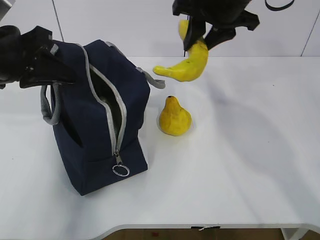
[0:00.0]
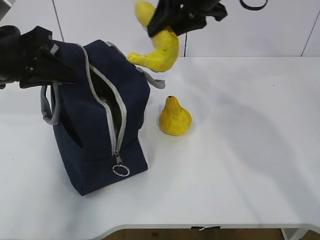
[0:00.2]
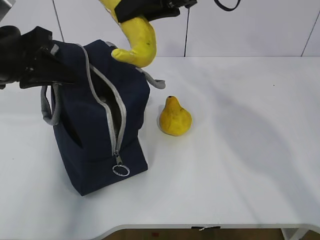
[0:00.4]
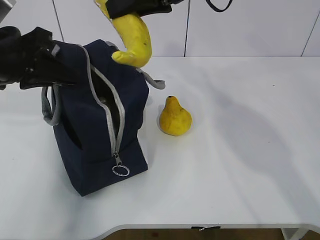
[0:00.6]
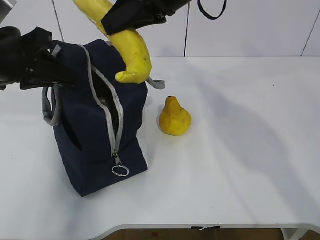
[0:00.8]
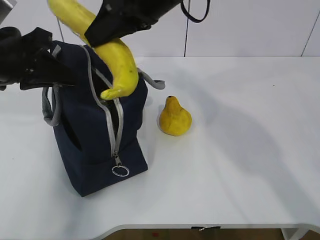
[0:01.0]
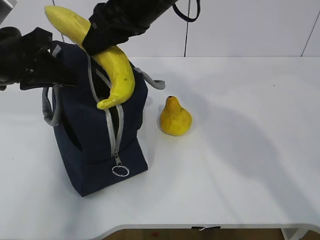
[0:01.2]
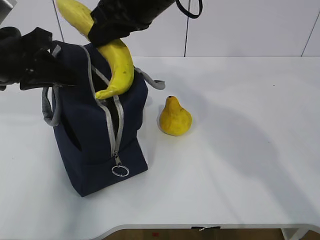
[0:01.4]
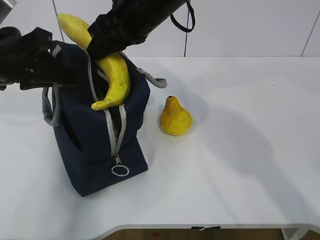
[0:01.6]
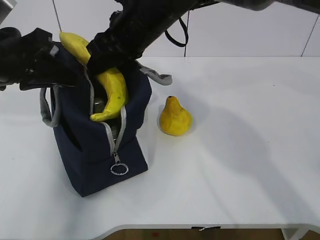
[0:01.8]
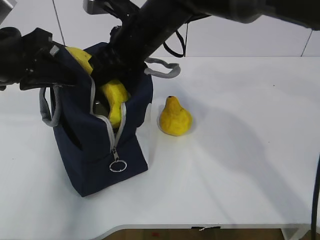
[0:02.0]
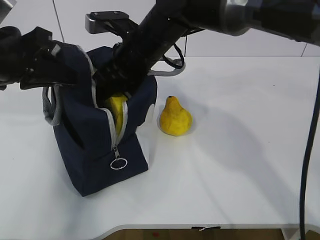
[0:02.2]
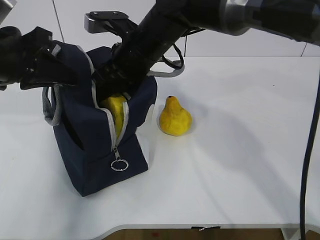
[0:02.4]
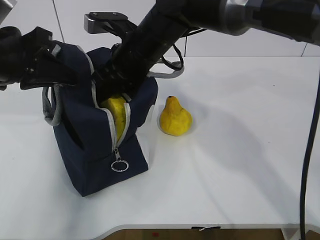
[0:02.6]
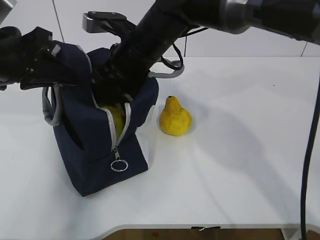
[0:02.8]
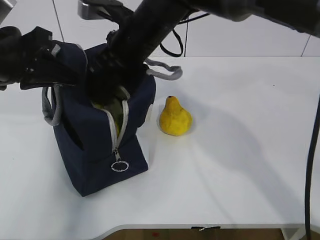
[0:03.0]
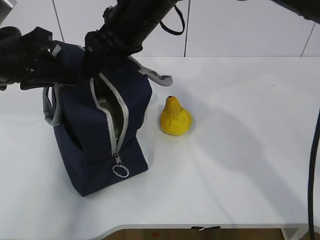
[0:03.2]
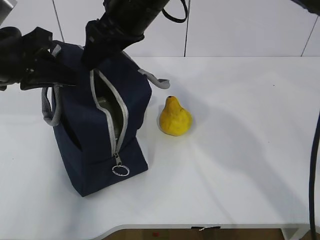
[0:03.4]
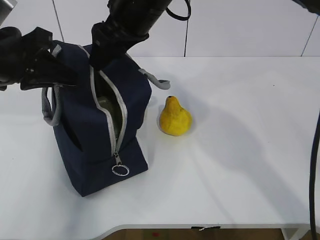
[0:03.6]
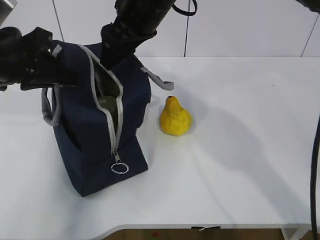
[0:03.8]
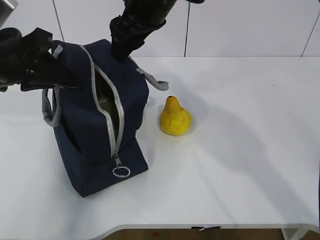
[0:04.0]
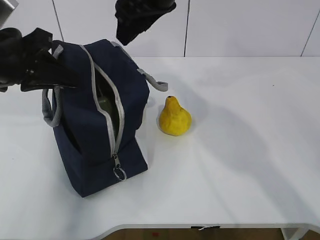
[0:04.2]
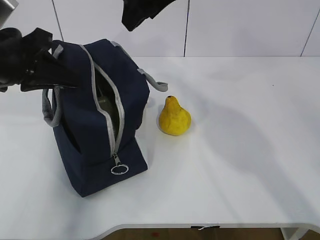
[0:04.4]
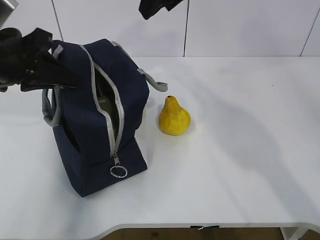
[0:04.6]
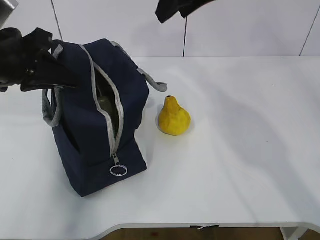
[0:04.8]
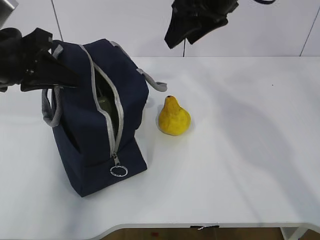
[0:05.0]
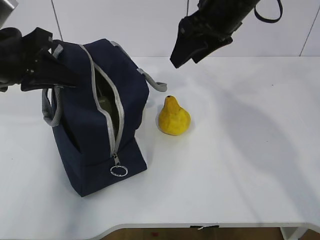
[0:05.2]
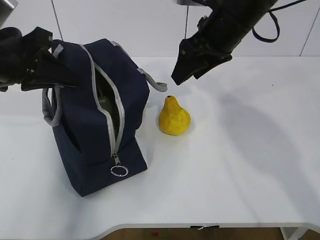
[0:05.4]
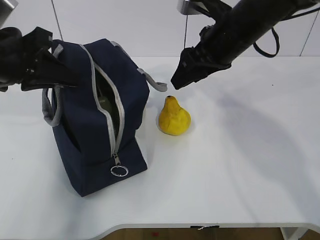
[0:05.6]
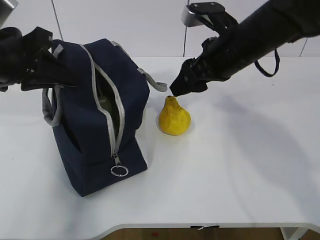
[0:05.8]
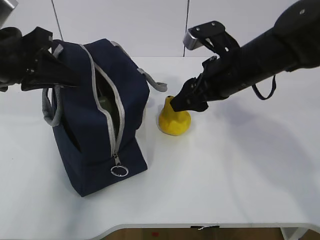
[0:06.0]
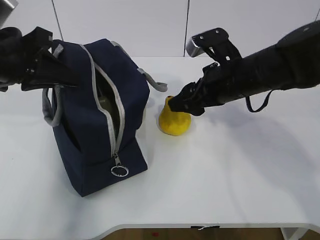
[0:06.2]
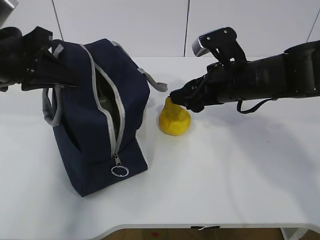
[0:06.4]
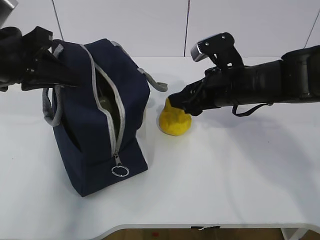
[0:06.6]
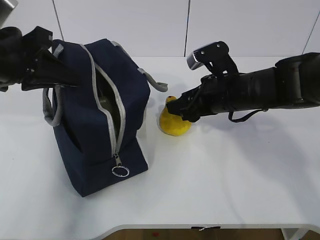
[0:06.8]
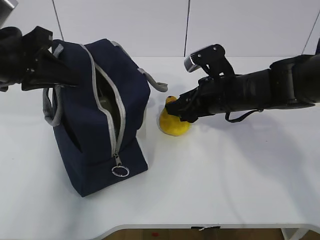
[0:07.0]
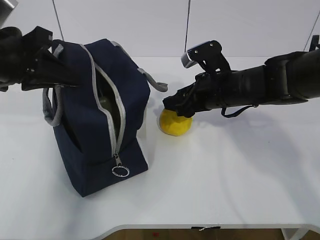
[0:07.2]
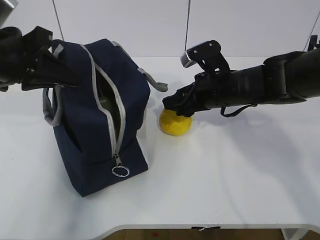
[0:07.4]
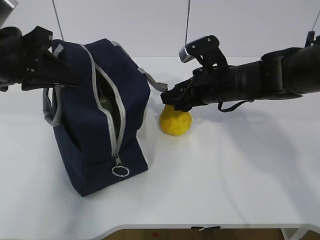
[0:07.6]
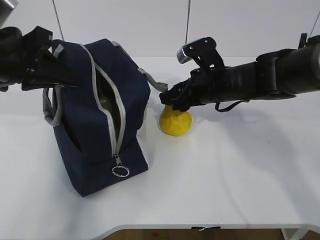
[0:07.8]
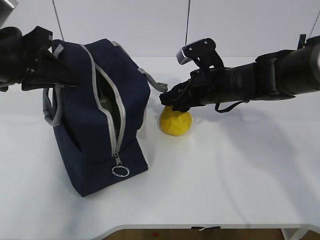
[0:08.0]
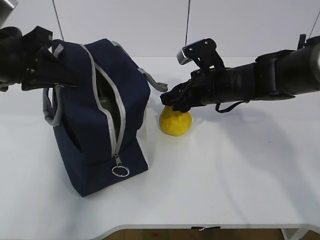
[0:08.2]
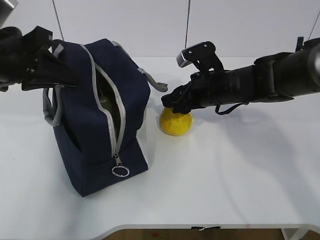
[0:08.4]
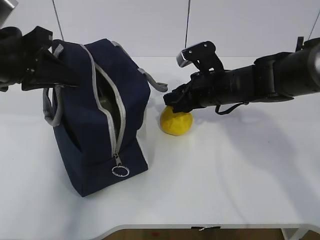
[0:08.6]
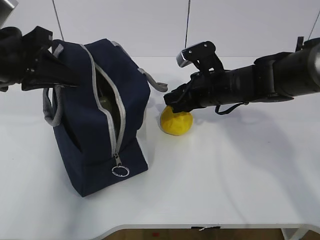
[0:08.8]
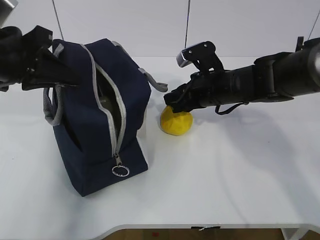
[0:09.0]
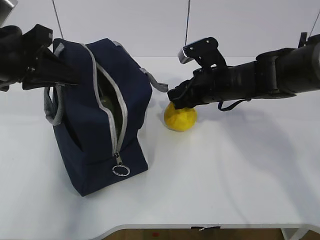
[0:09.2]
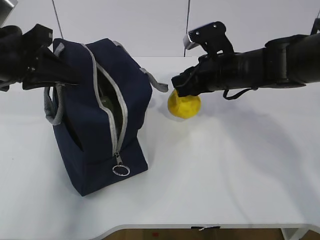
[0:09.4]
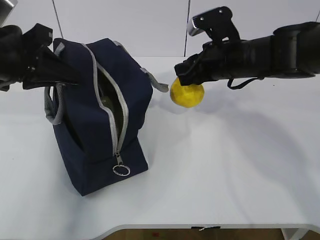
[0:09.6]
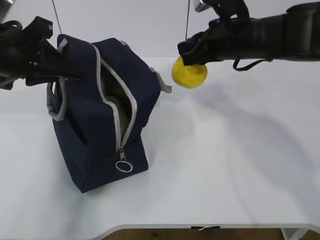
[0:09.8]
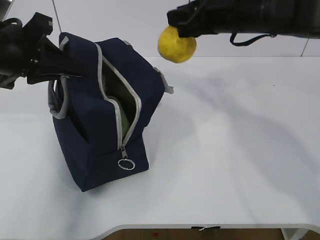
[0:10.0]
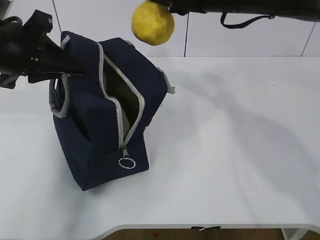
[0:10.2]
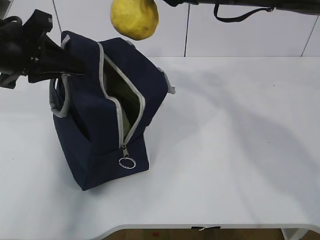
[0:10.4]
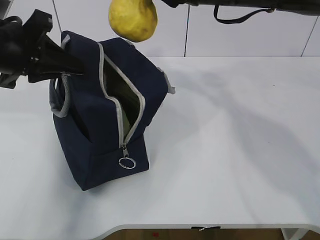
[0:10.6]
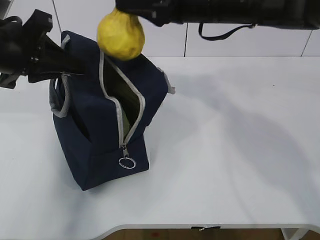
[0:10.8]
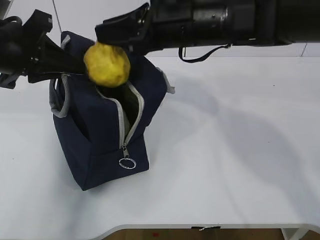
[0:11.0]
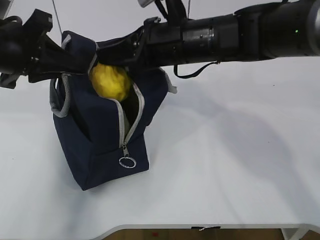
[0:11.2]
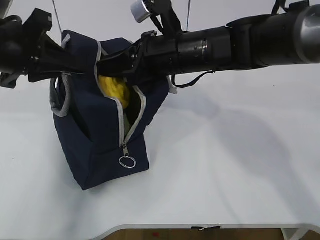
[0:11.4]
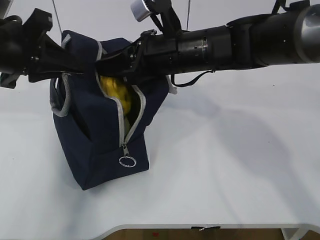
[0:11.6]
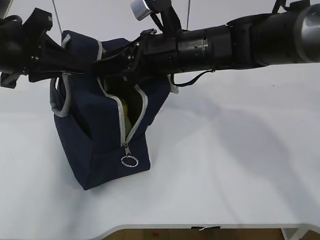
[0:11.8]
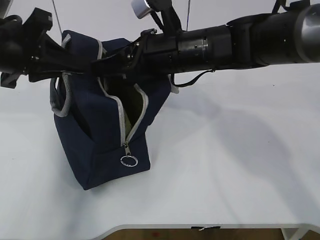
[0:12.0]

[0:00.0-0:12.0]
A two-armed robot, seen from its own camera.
Step, 0:00.0 to 0:03.4: Grab the pear with your right hand.
Step, 0:06.0 to 0:09.8: Grab the lunch bag with your right hand.
0:00.0 to 0:01.6: The right gripper is displaced to the left by approximately 10 cm.
0:01.6 to 0:03.0: The right gripper heads downward, covering some 5 cm, and opens up.
0:03.0 to 0:04.4: The right gripper shifts approximately 10 cm upward and to the right.
0:04.4 to 0:06.0: The right gripper goes approximately 15 cm downward and to the right.
0:06.0 to 0:07.6: The right gripper heads downward, covering about 5 cm.
0:07.6 to 0:09.0: The right gripper closes.
0:09.0 to 0:10.4: The right gripper goes roughly 20 cm upward.
0:10.4 to 0:12.0: The right gripper moves downward and to the left, about 10 cm, and opens its fingers.

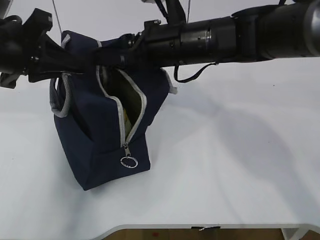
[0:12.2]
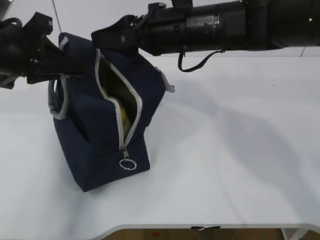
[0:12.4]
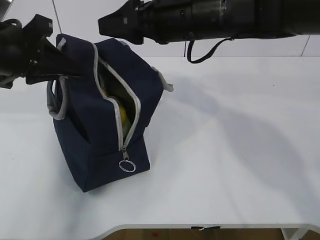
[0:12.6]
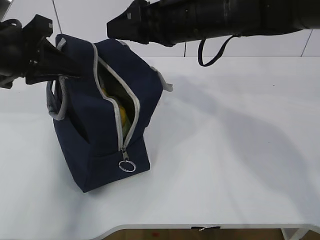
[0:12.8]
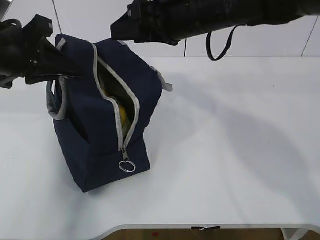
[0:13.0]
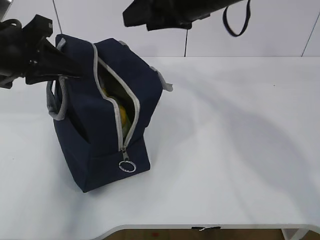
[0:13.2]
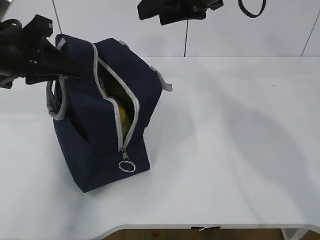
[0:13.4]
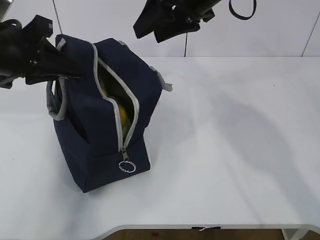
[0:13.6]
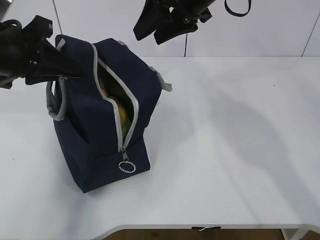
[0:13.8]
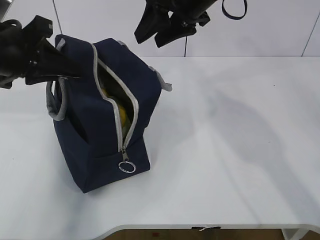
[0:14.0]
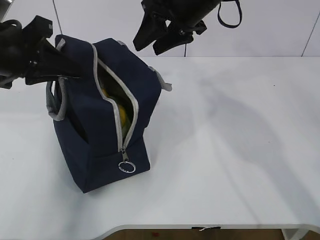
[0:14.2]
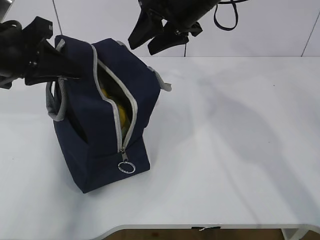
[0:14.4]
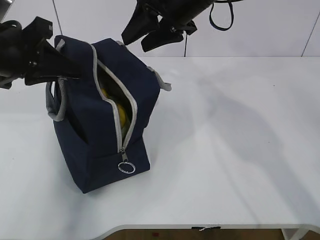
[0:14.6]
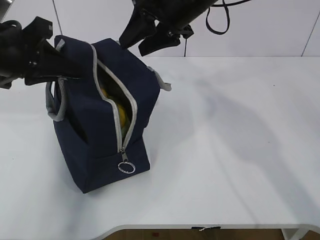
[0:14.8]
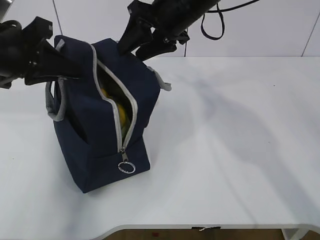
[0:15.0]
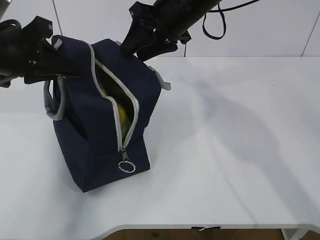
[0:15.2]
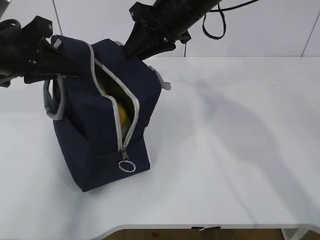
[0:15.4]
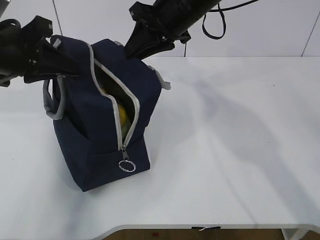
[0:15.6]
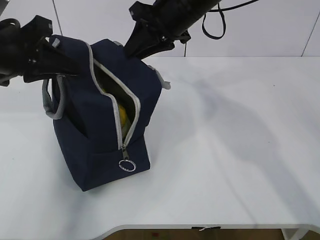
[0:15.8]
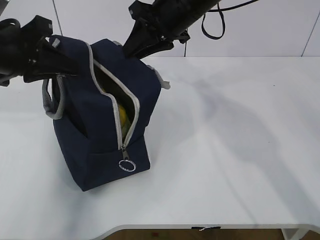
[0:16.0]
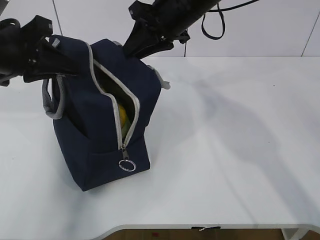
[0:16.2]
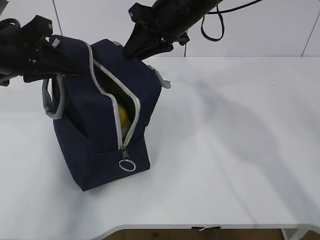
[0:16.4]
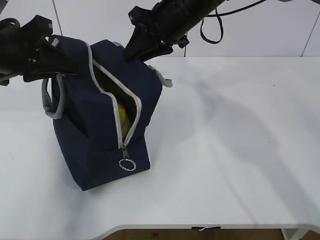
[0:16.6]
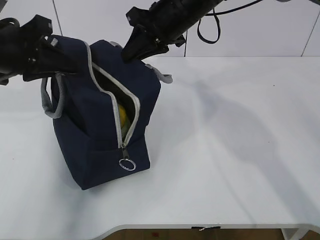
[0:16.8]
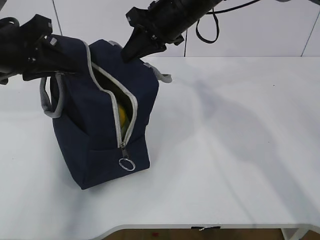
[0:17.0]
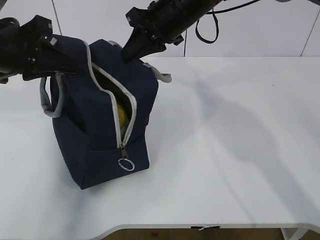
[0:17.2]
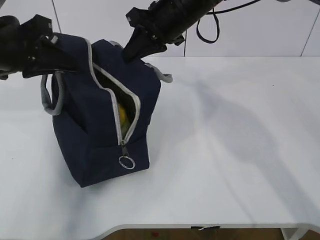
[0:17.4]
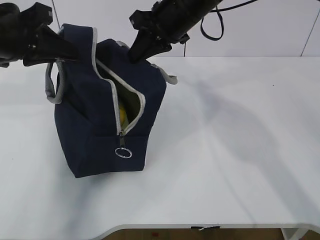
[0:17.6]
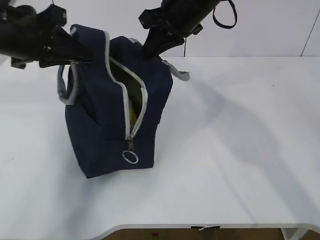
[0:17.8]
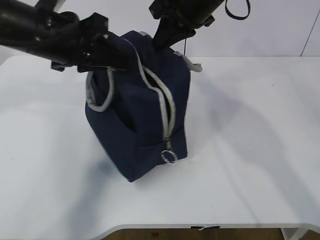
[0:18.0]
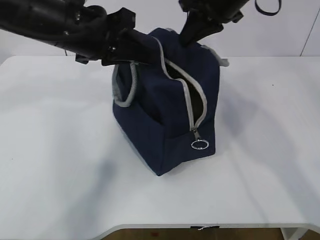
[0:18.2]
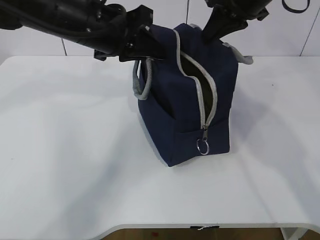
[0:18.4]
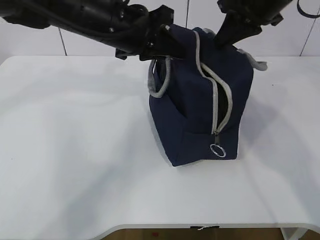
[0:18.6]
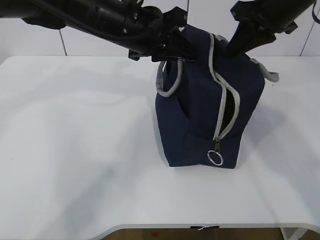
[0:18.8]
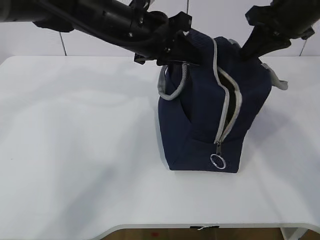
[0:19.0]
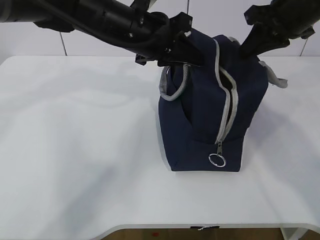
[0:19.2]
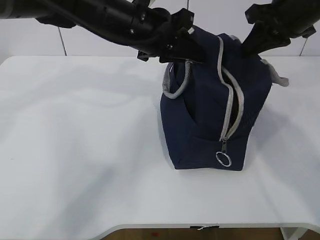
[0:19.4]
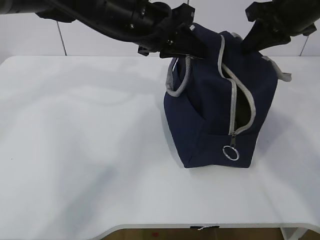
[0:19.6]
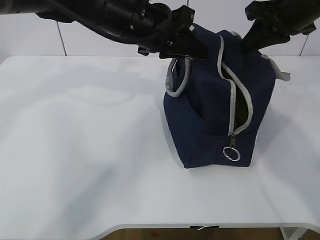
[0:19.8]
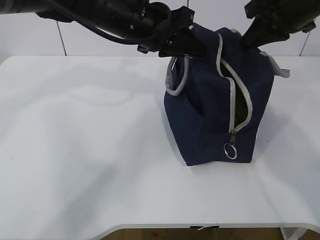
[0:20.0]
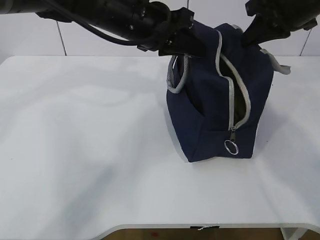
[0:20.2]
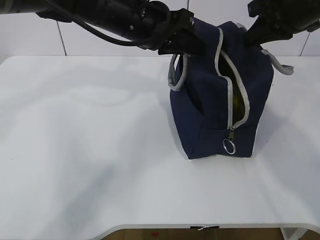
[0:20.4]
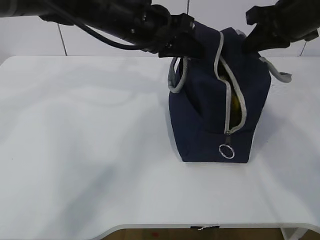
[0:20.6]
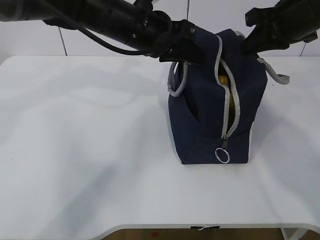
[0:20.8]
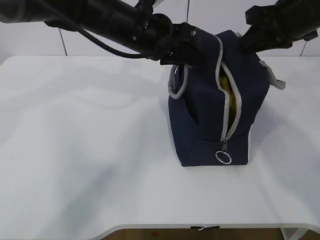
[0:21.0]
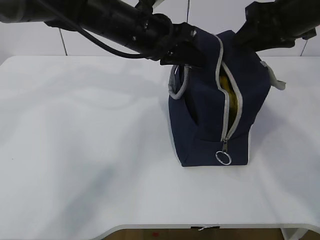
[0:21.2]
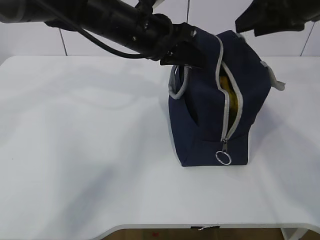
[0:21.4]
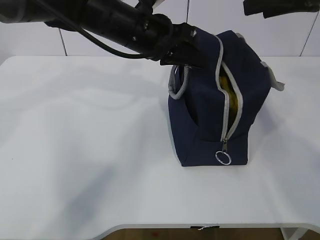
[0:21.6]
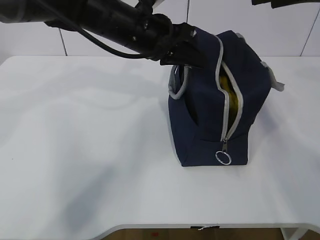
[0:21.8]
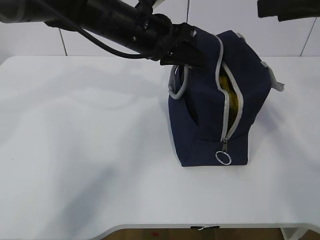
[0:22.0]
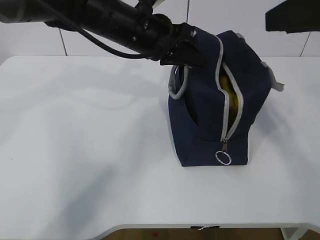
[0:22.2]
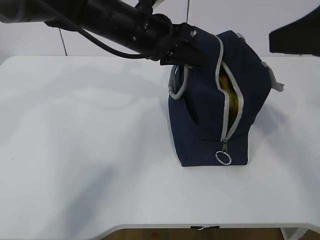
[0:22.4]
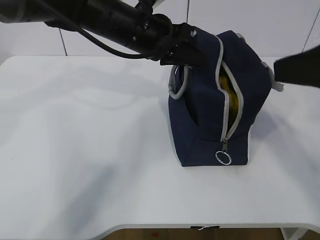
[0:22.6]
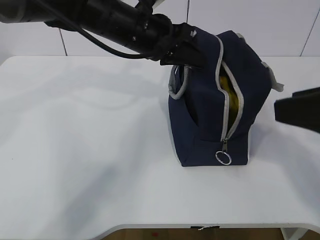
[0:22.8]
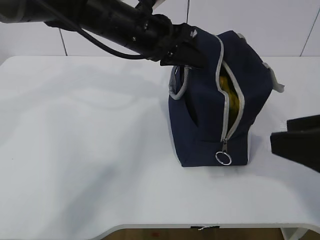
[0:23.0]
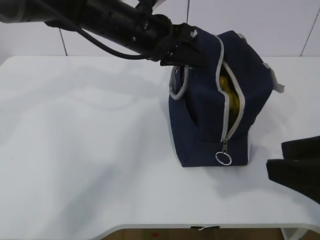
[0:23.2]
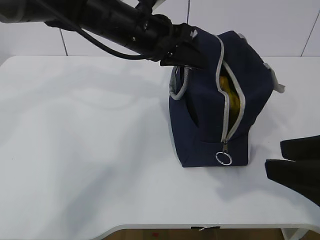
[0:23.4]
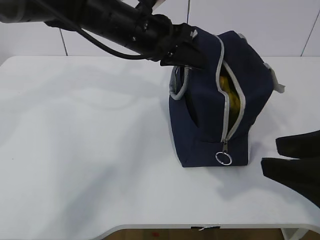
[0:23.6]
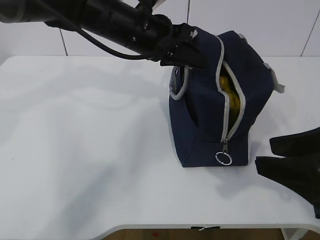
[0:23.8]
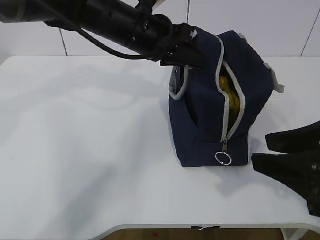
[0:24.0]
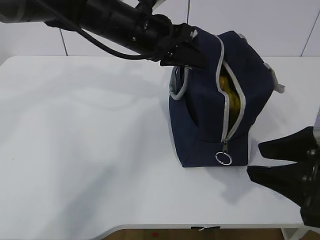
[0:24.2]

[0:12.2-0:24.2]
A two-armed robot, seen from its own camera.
0:12.2 to 0:13.8: The right gripper goes roughly 10 cm upward.
0:13.8 to 0:15.2: There are only small adjustments of the grippers.
0:15.2 to 0:16.6: Both grippers stay put.
0:16.6 to 0:18.2: Both grippers travel together to the right, approximately 10 cm. The right gripper closes its fingers.
0:18.2 to 0:19.8: Both grippers travel together to the right, approximately 10 cm.
0:19.8 to 0:21.2: The right gripper opens its fingers.
0:21.2 to 0:22.6: The right gripper goes approximately 20 cm backward.
0:22.6 to 0:24.2: The right gripper shifts about 10 cm downward.
